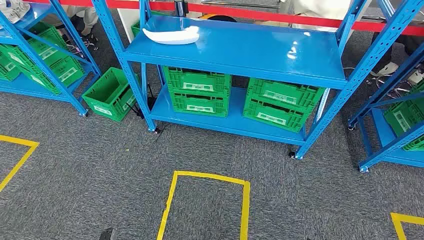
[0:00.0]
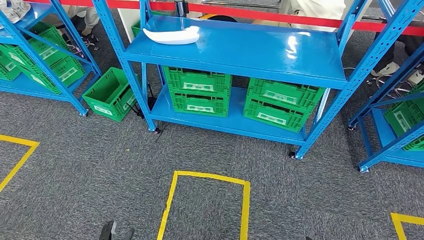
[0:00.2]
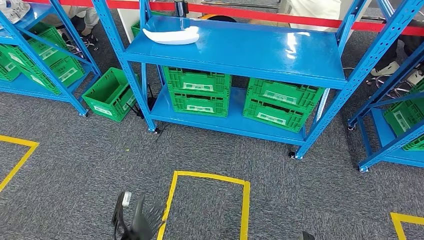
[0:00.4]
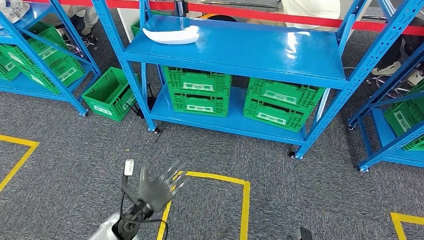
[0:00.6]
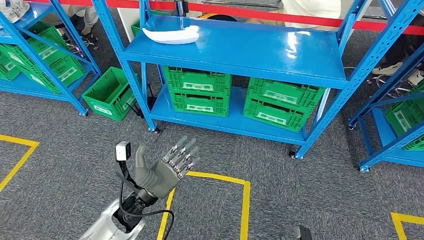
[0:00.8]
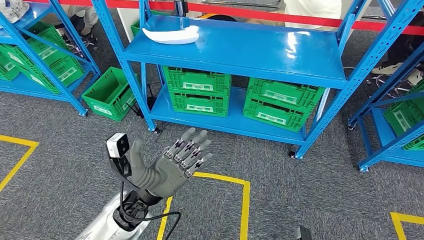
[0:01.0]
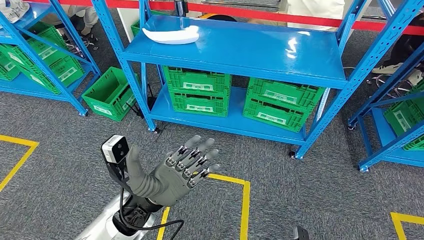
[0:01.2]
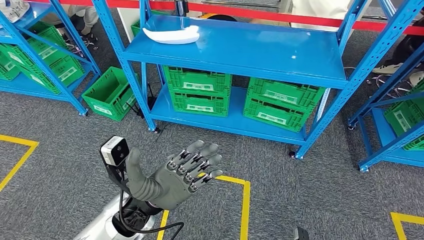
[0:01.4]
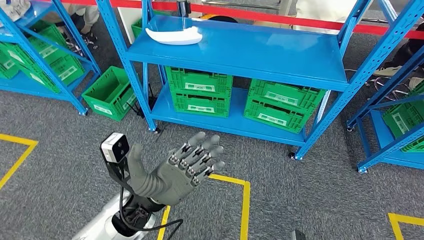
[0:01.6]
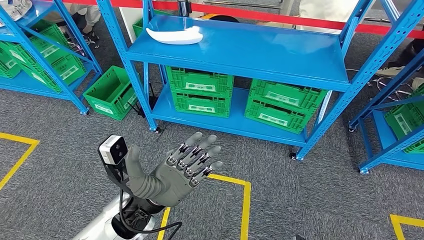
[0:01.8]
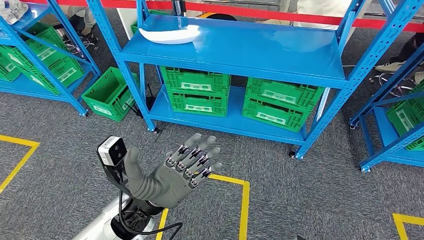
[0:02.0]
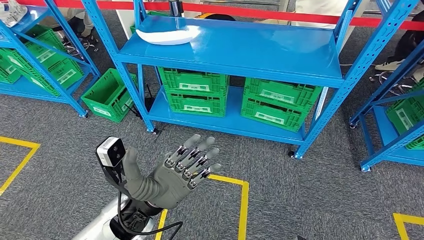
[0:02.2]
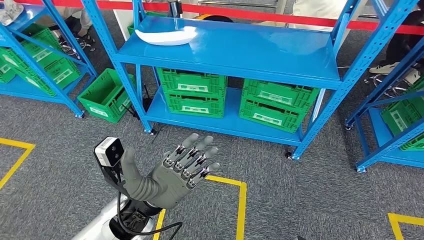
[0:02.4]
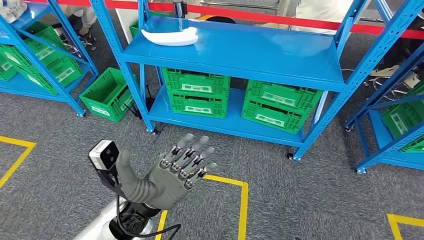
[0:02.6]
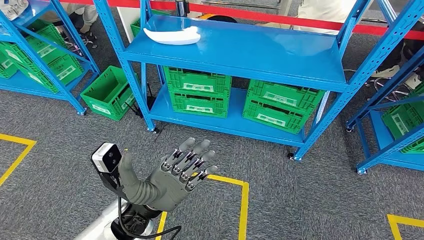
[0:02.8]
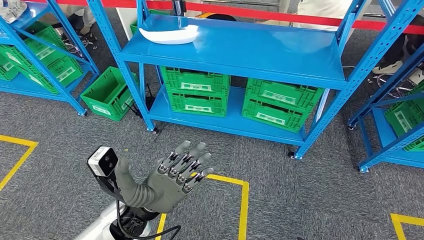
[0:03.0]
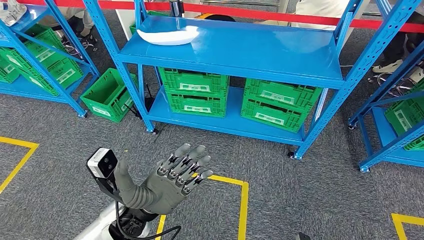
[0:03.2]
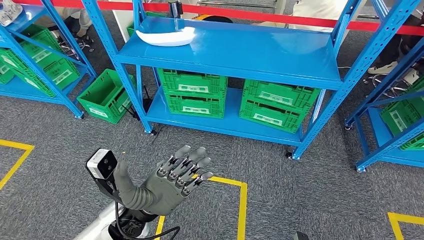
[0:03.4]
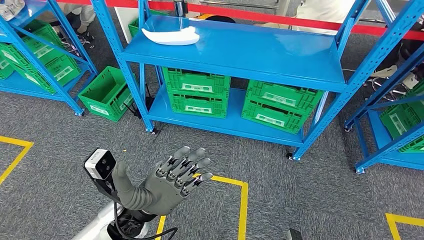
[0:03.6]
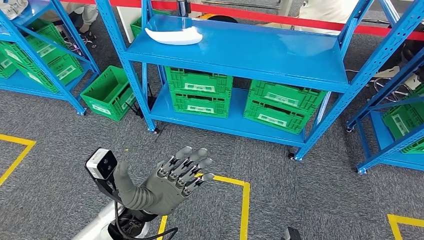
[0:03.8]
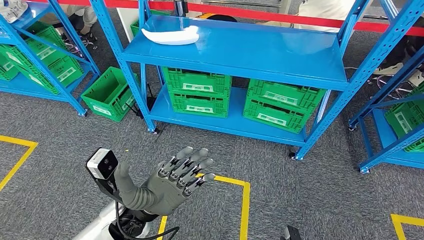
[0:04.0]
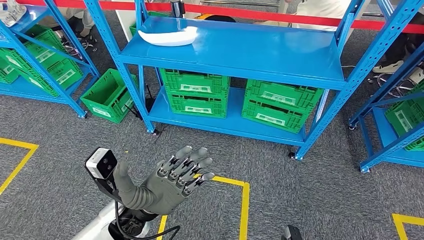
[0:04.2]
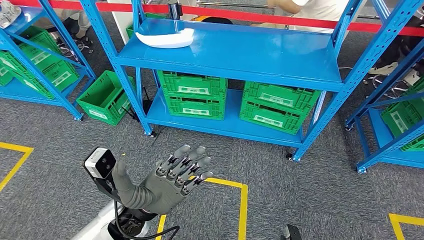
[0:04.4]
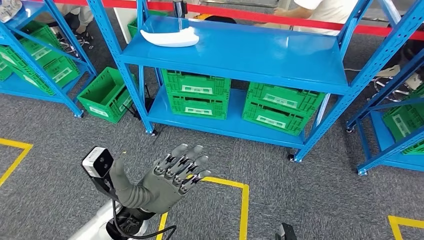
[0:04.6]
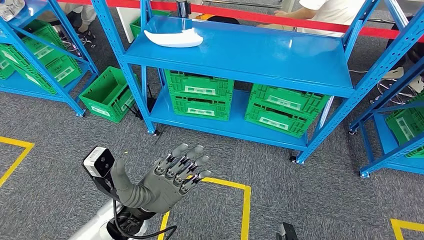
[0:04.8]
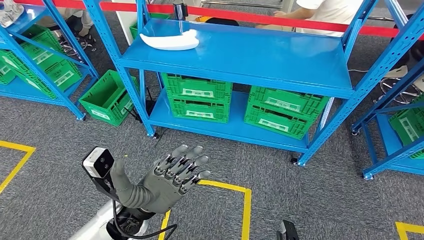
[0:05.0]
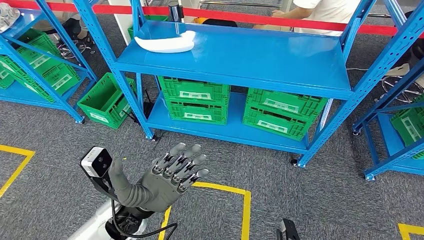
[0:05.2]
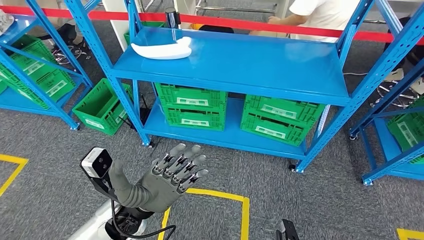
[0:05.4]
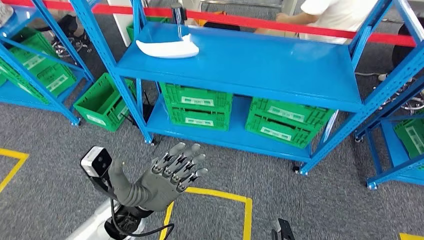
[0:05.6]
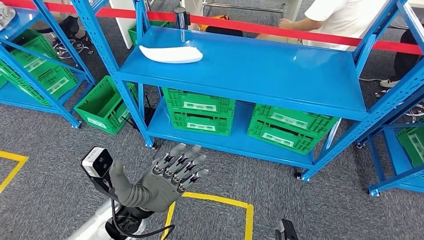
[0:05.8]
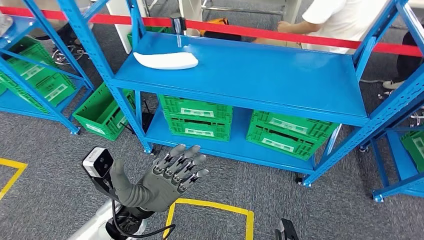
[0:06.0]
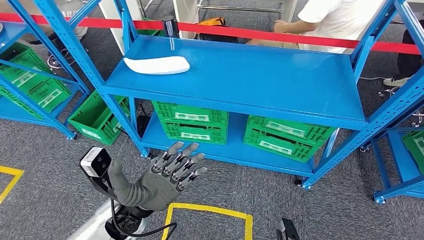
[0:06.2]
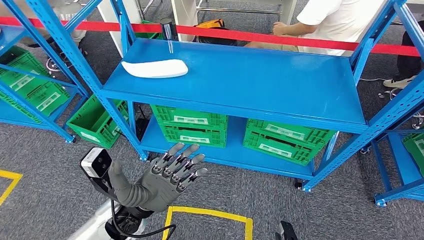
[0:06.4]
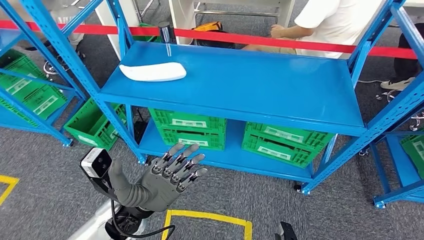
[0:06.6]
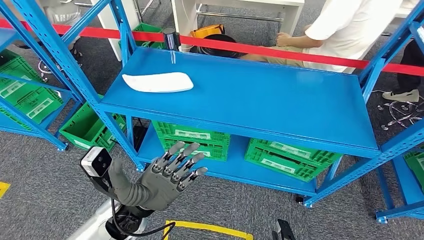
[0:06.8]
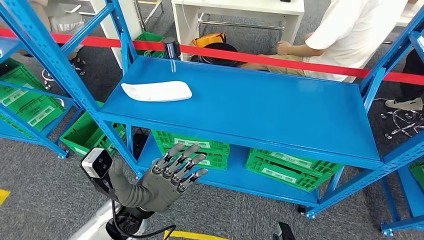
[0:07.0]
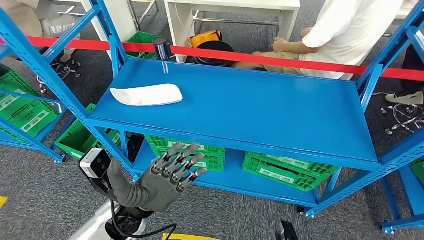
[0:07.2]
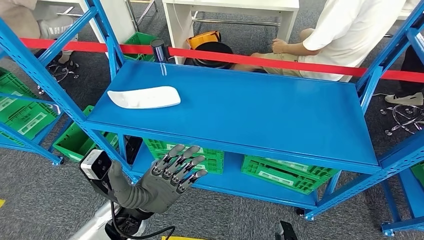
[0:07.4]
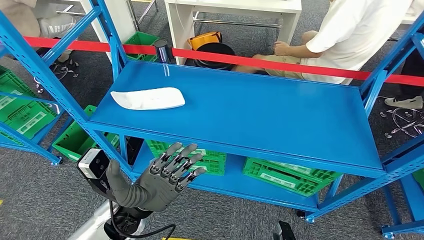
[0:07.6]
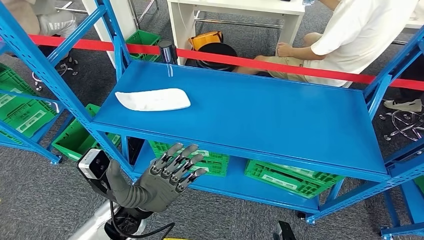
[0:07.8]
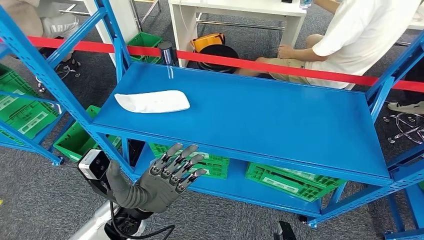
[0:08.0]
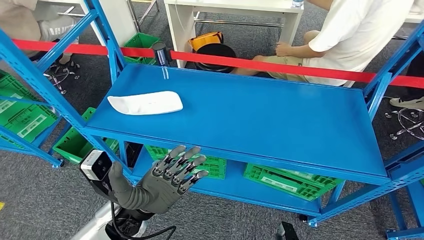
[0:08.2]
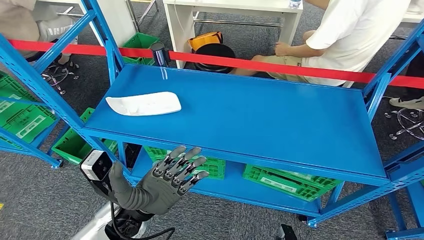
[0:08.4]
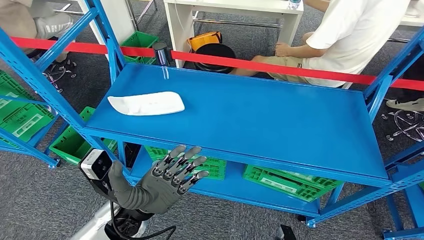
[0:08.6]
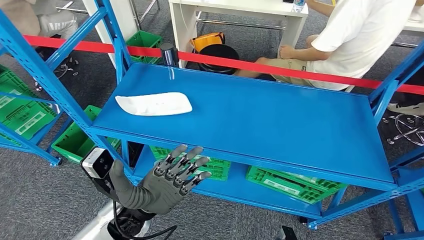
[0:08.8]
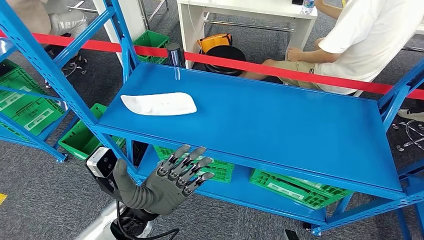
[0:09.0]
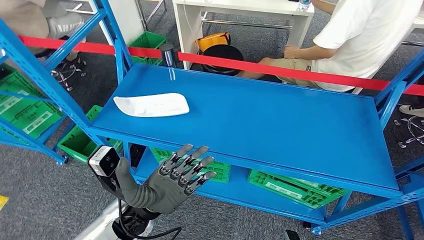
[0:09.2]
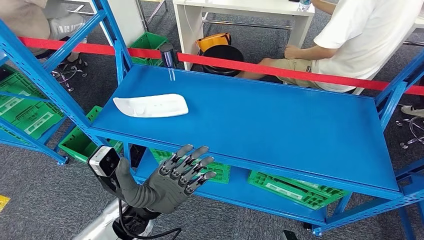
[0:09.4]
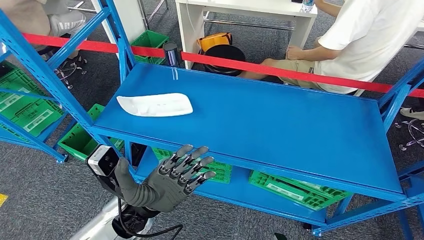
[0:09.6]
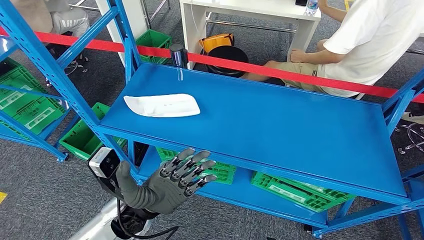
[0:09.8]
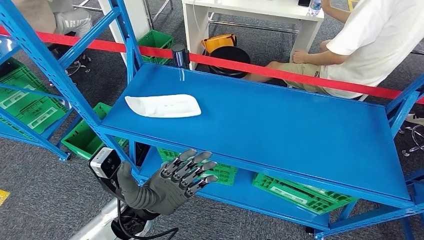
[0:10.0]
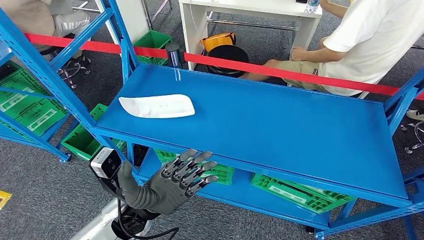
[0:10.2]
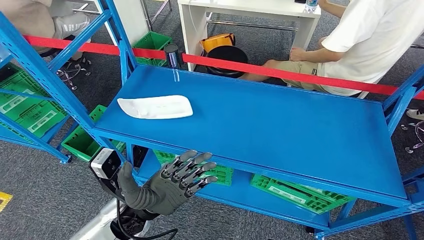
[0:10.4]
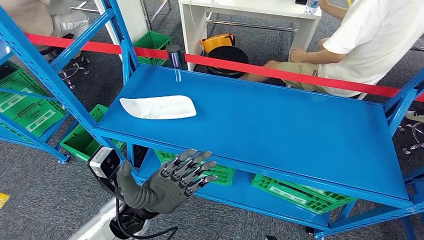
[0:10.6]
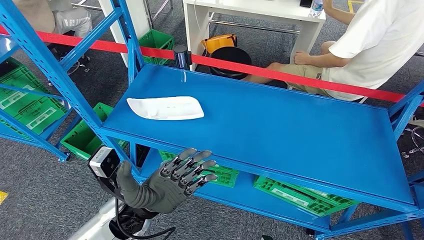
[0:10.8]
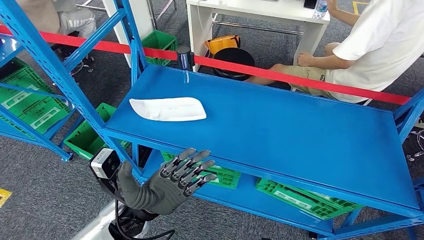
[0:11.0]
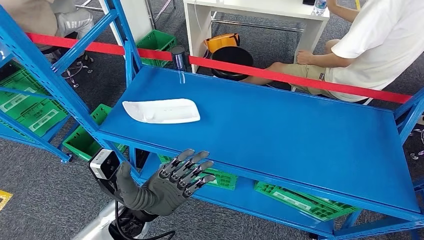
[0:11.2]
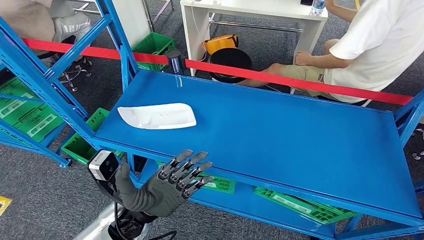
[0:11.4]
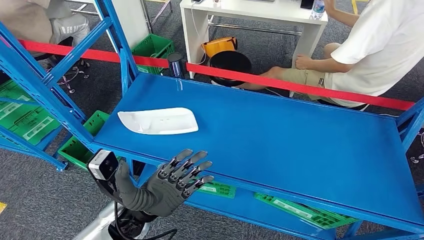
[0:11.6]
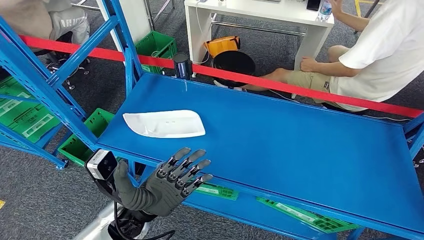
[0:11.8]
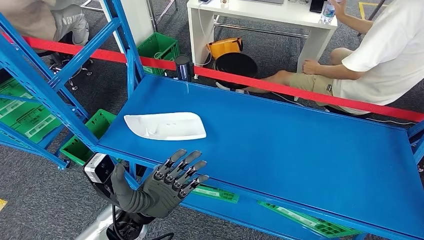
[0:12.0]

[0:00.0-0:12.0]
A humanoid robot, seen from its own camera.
0:01.6 to 0:03.0: The hands make only small movements.

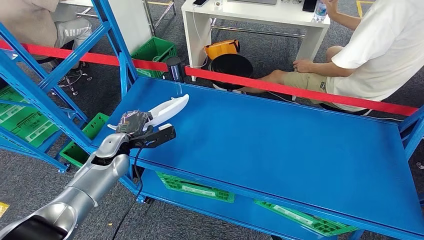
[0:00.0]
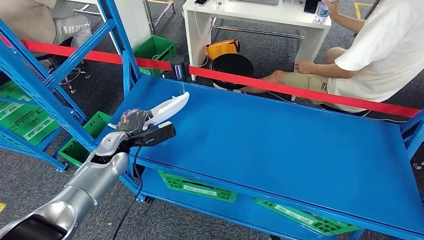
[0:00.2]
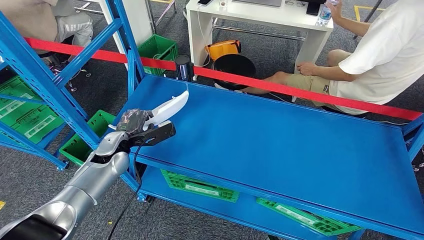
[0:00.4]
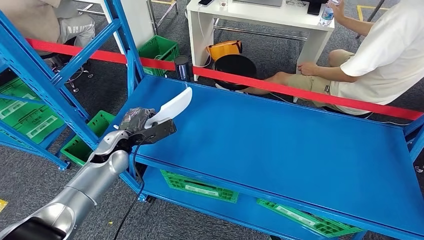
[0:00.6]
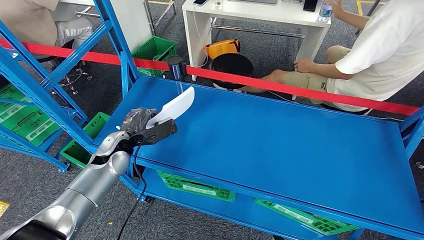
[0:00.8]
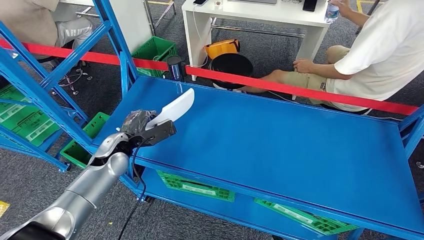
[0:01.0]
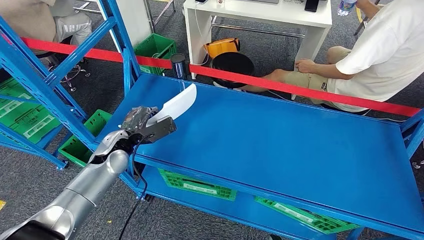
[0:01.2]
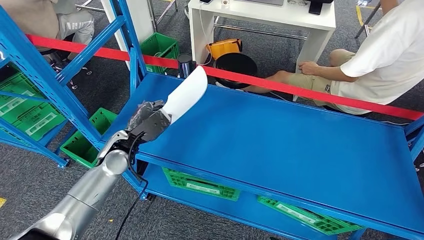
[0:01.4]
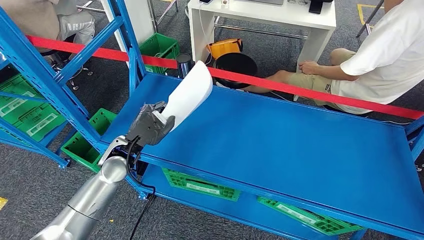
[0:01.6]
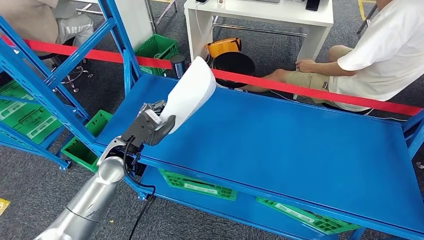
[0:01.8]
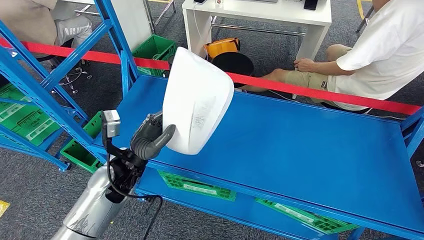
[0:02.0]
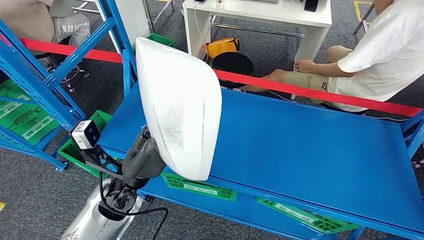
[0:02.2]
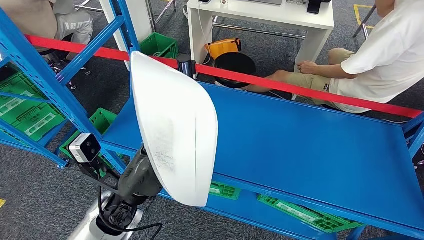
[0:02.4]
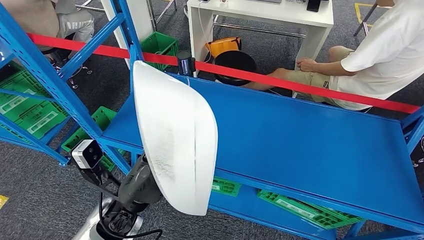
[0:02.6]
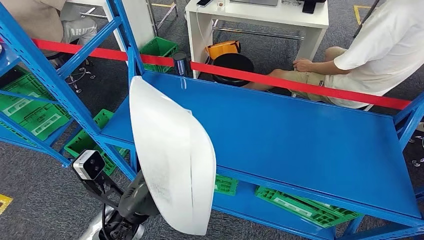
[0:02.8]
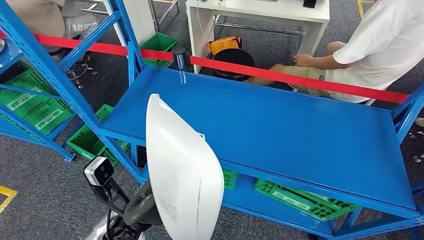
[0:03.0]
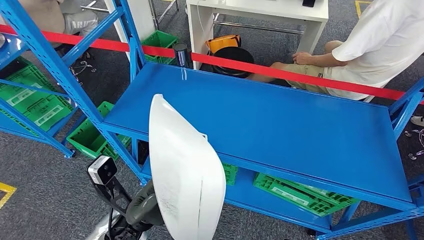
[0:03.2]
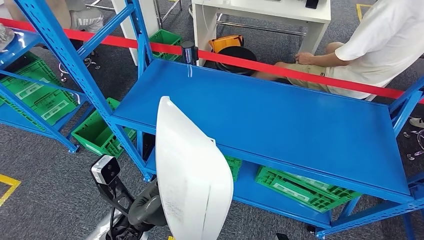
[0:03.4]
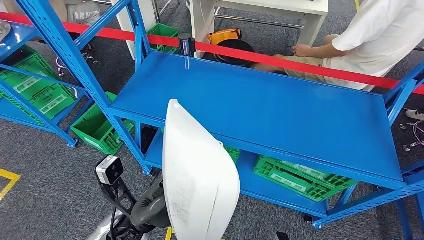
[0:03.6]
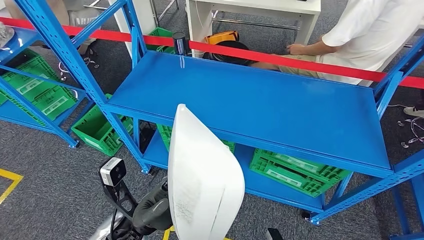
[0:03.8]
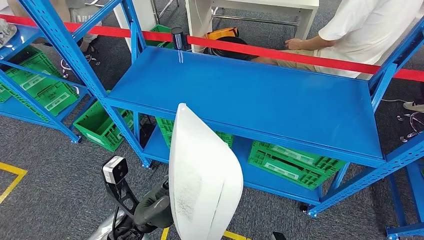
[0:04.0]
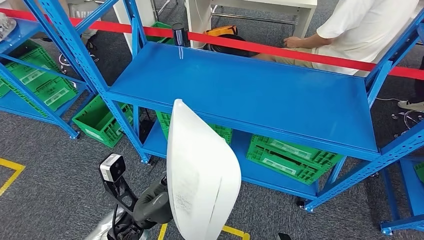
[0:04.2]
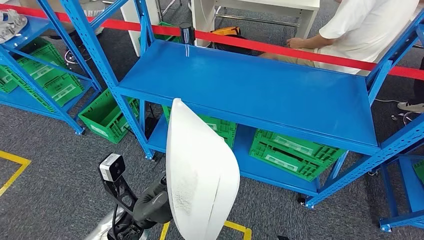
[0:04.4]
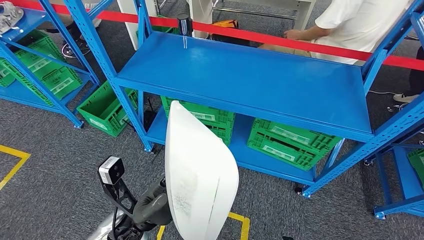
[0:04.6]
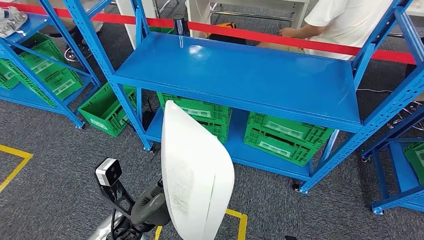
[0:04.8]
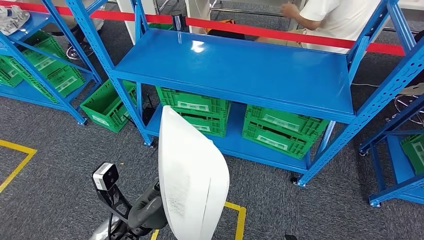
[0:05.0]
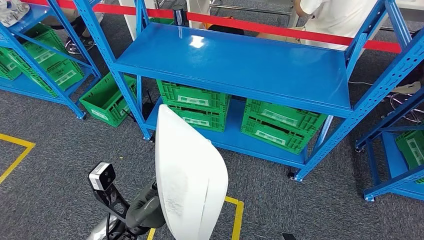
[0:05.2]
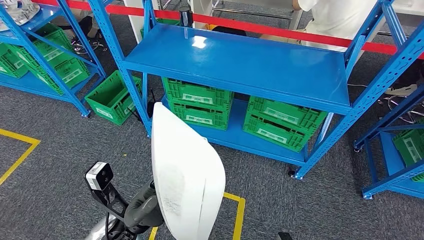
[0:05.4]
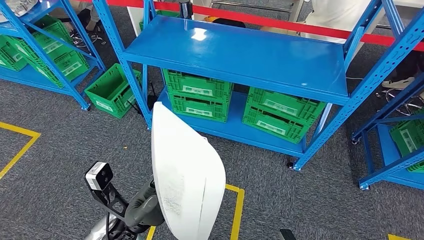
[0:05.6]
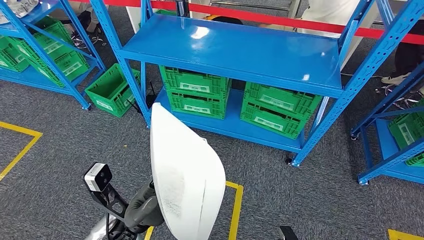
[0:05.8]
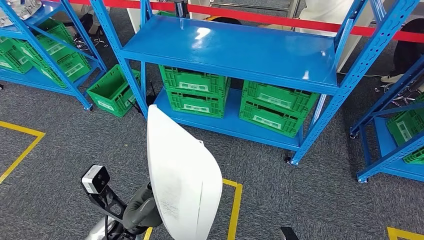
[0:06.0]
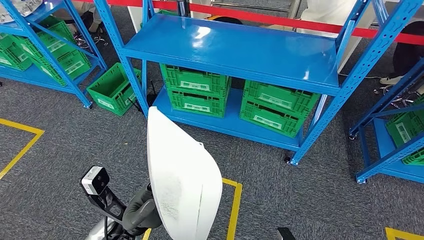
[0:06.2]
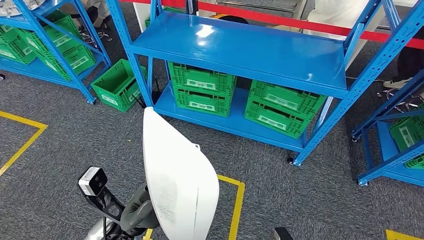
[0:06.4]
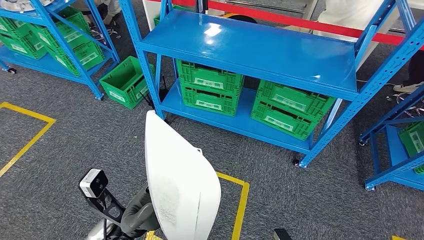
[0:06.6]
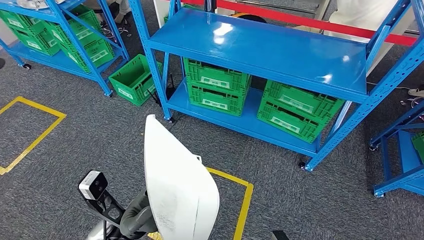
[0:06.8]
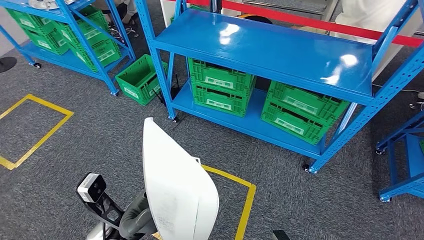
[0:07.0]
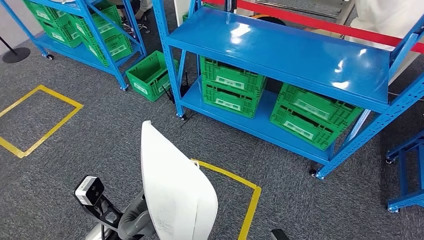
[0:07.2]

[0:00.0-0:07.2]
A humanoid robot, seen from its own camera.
Step, 0:00.0 to 0:02.2: Pick up the small component from the shelf.
